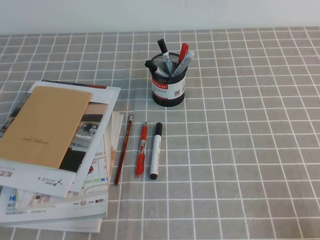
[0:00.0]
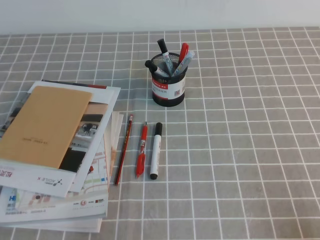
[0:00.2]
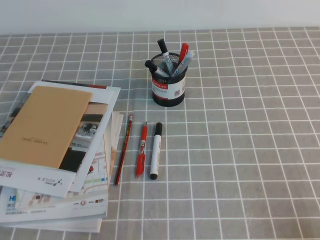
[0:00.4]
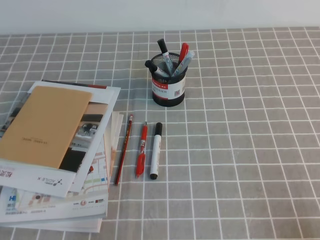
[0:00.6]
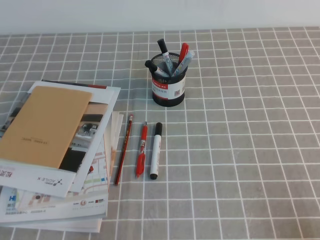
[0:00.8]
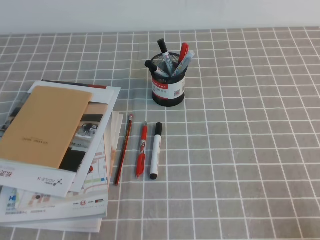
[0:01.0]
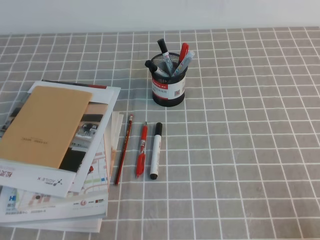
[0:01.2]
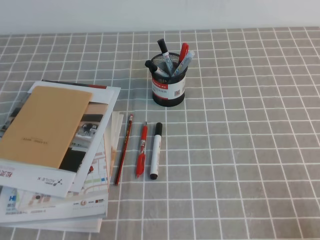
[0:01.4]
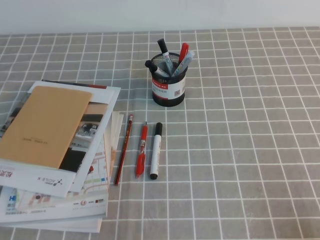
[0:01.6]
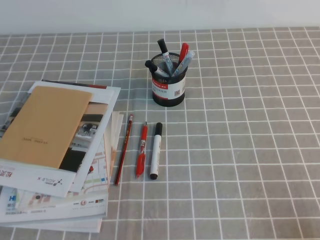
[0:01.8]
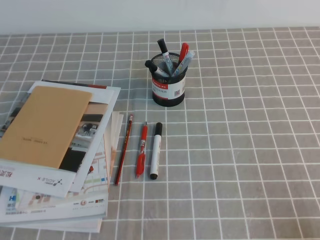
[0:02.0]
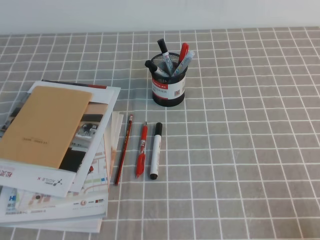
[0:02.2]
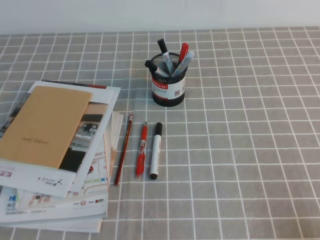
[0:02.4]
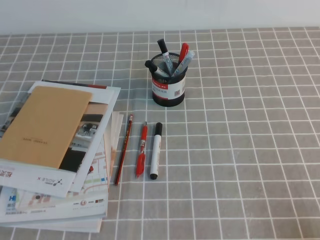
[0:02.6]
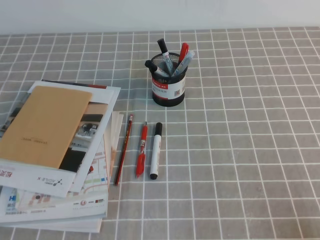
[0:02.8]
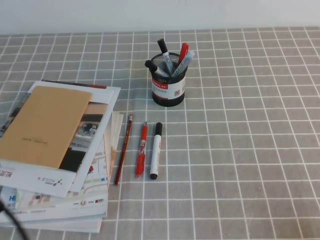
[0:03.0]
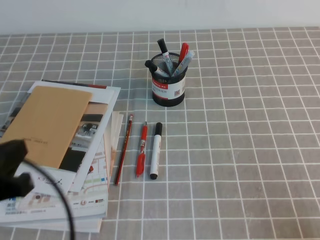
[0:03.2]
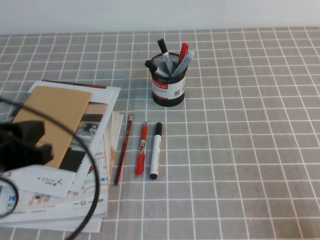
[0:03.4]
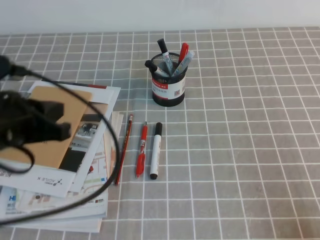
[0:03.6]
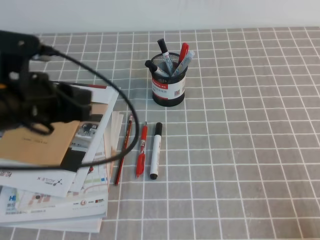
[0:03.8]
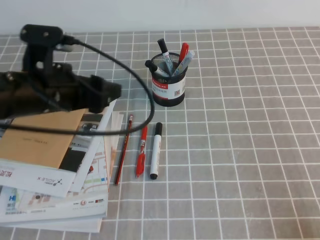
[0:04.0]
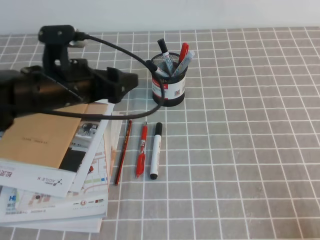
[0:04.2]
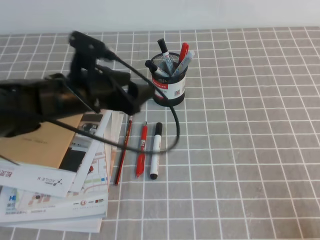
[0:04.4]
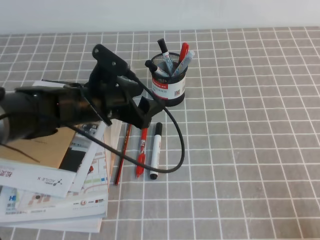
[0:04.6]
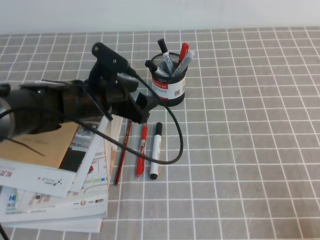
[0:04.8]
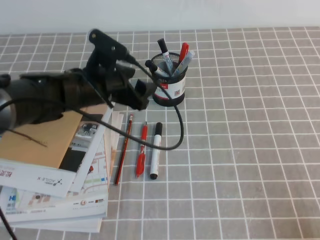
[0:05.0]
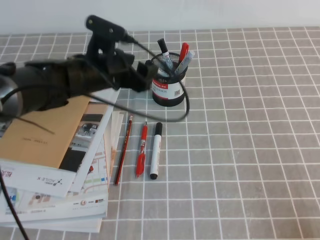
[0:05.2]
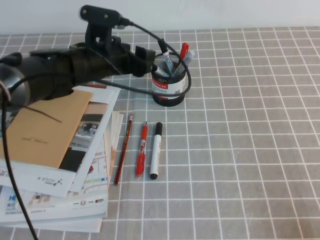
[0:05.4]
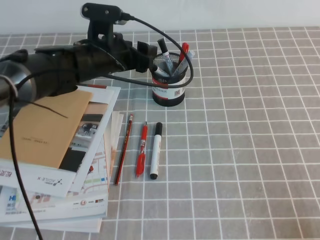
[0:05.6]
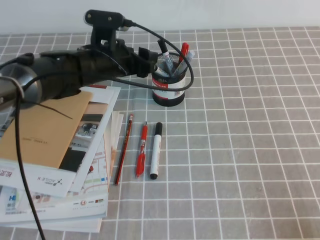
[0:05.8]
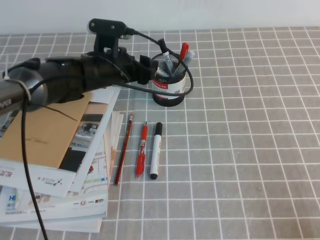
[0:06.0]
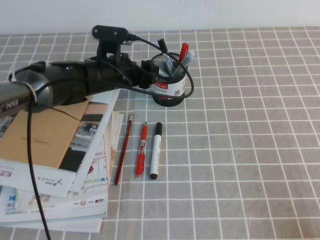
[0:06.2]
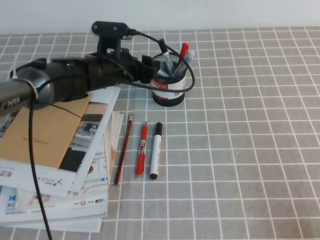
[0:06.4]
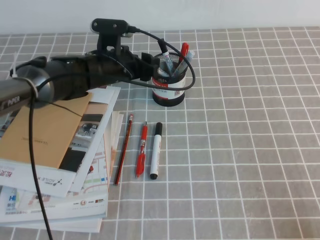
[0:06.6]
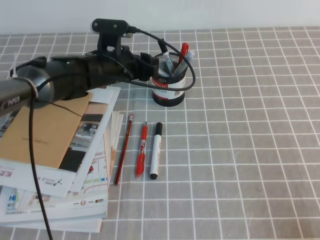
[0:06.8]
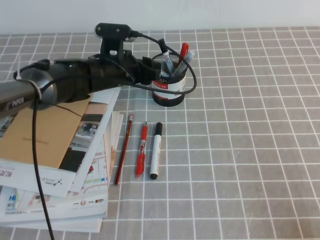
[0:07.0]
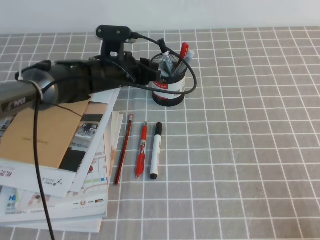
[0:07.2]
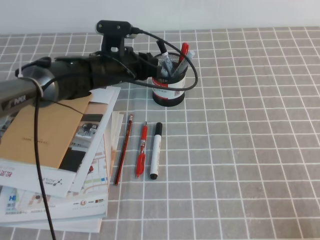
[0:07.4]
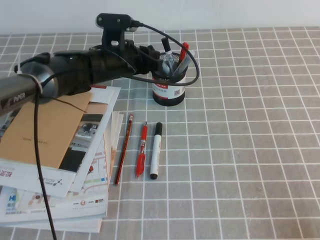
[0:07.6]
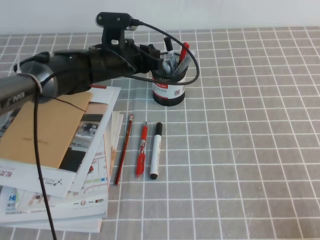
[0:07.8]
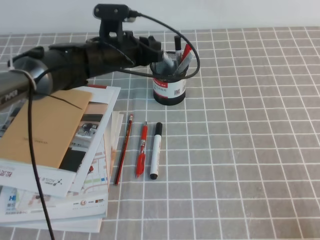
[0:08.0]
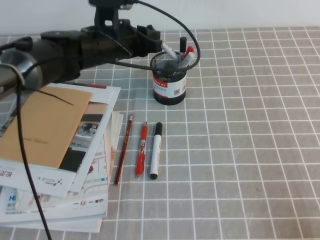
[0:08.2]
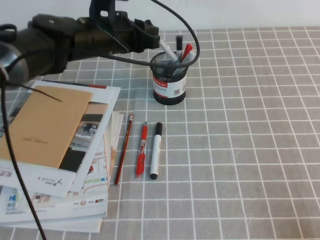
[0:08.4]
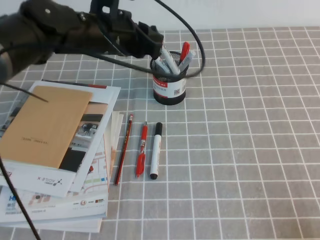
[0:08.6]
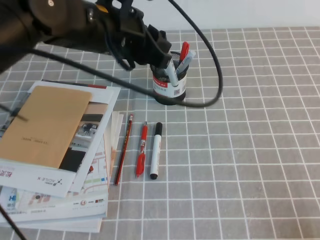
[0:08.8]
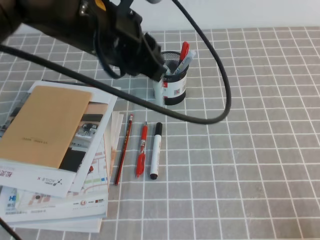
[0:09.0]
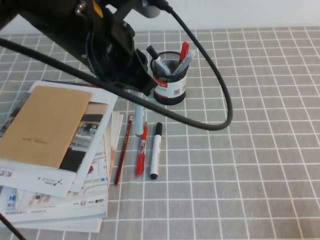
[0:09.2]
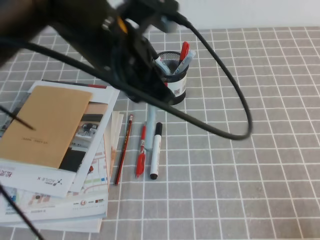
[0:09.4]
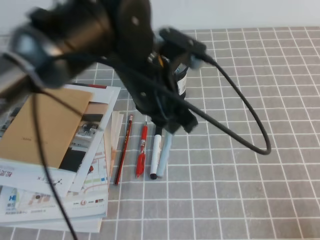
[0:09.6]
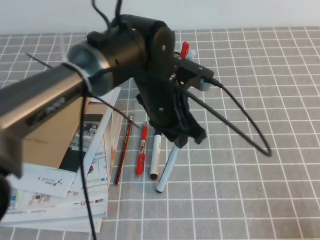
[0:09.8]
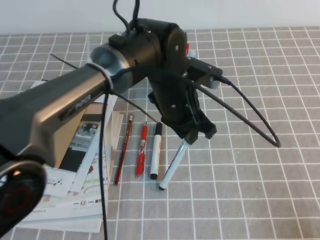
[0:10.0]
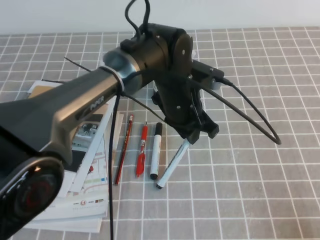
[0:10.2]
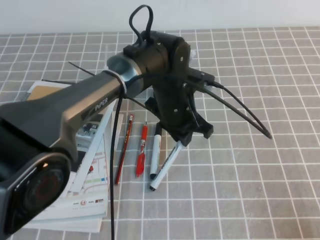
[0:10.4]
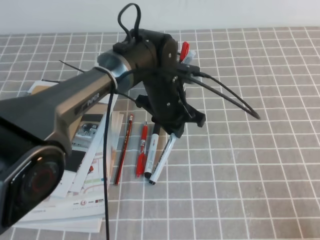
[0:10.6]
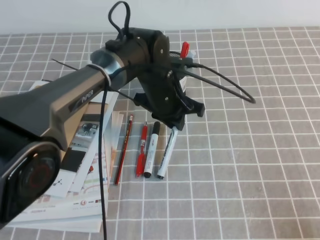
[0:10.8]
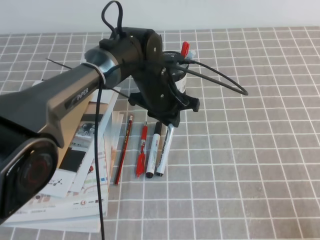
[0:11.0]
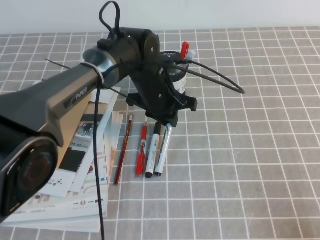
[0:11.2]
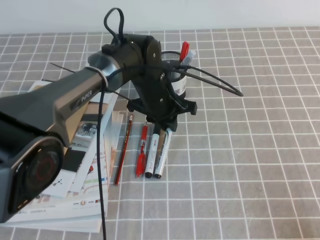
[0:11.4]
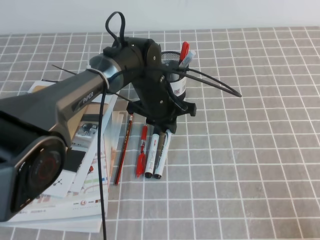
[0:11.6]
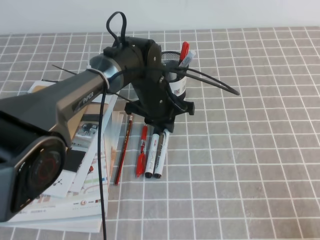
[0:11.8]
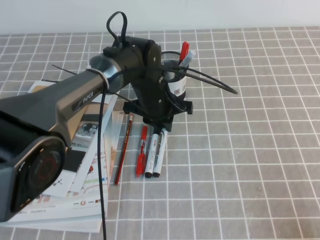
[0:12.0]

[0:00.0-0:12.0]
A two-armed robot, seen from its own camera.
0:03.0 to 0:04.4: The left gripper moves forward and to the right, about 25 cm, and opens.
0:04.4 to 0:06.0: The left gripper heads forward, covering roughly 10 cm.
0:06.0 to 0:07.6: The left gripper closes up.
0:07.6 to 0:09.0: The left gripper shifts some 20 cm upward and backward.
0:09.0 to 0:10.4: The left gripper is displaced downward and to the right by some 20 cm.
0:10.4 to 0:12.0: The left gripper shifts by roughly 5 cm.

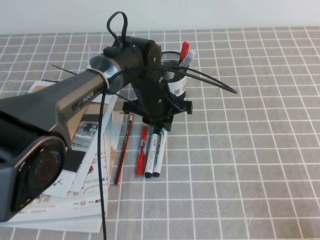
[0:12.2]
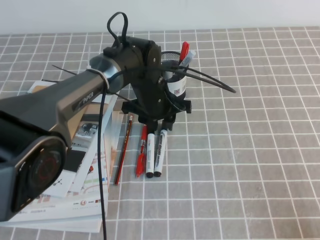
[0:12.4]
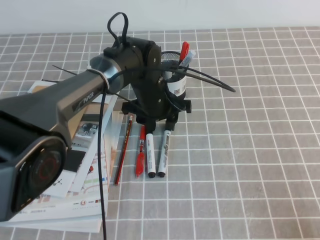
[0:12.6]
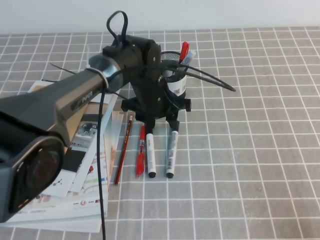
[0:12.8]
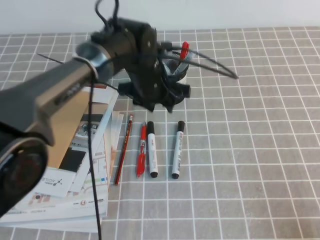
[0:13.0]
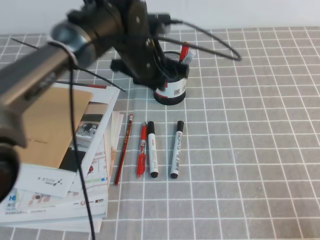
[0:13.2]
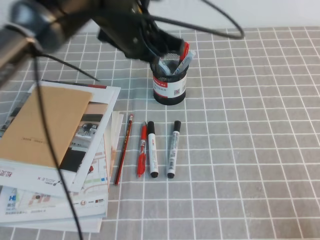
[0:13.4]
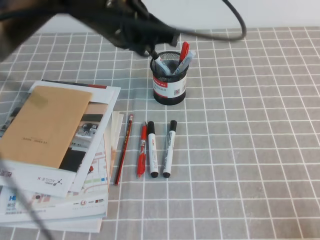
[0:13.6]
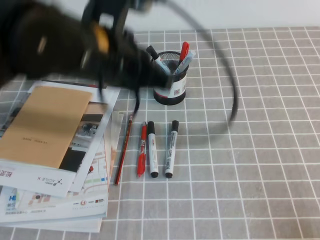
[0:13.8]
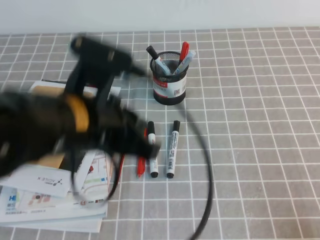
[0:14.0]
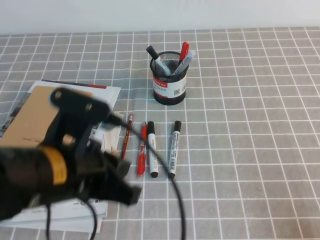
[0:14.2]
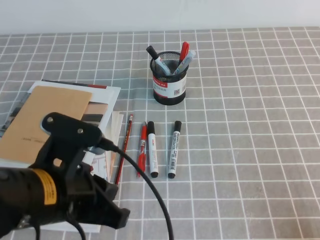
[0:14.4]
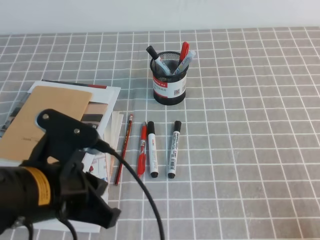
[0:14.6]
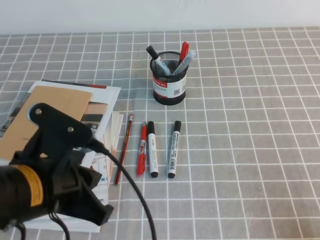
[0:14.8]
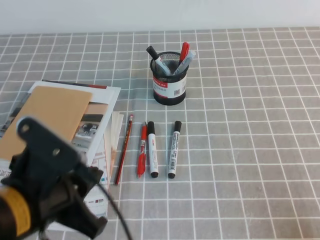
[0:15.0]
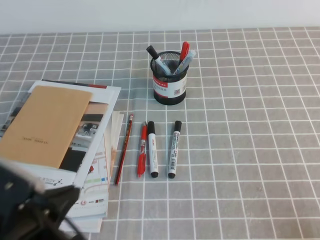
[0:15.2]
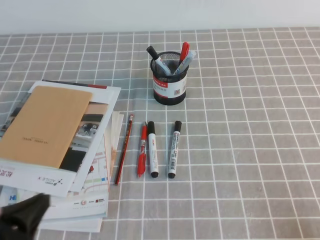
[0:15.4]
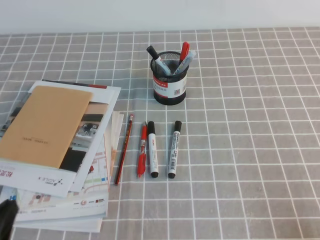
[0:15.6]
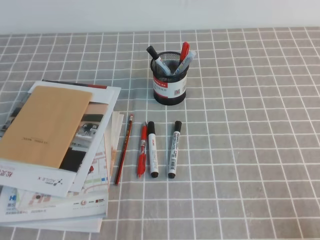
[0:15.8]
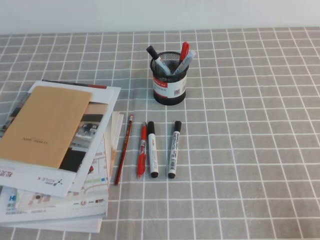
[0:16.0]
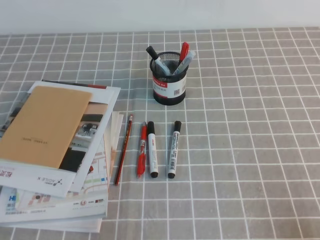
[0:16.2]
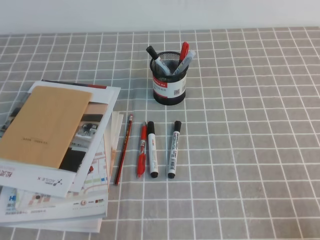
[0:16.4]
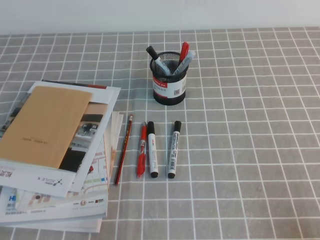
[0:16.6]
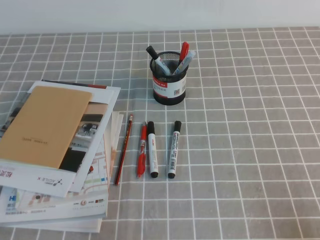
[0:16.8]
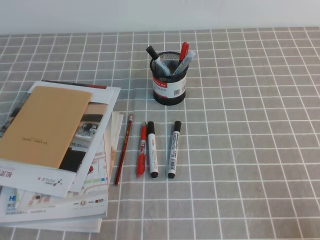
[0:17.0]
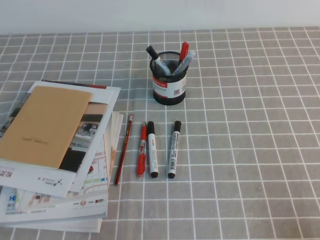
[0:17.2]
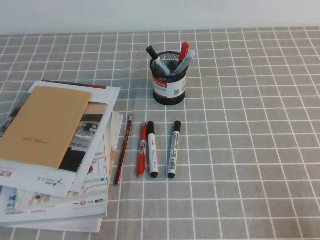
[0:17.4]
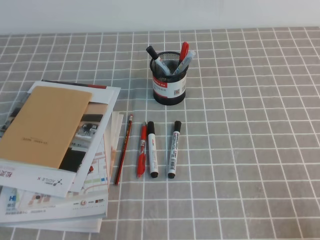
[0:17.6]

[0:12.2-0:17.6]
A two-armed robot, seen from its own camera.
Step, 0:12.2 to 0:17.6: Pick up the pen from the pen holder.
0:12.2 to 0:13.6: The left gripper goes roughly 20 cm upward and backward, and opens, then closes once more.
0:13.6 to 0:15.0: The left gripper goes roughly 25 cm backward, to the left and downward.
0:15.0 to 0:16.2: The left gripper shifts approximately 15 cm to the left, downward and backward.
0:16.2 to 0:17.6: The two grippers keep their place.
